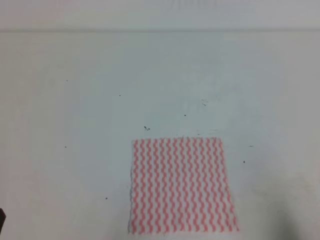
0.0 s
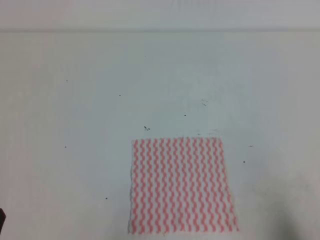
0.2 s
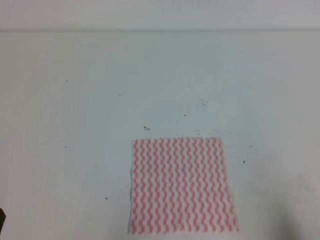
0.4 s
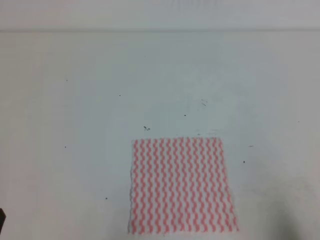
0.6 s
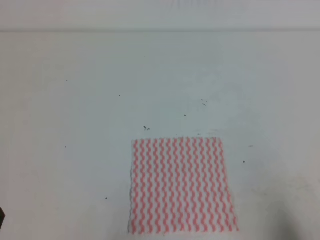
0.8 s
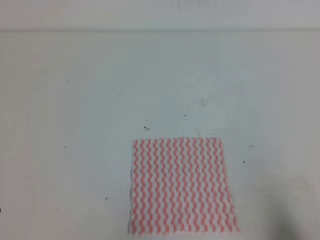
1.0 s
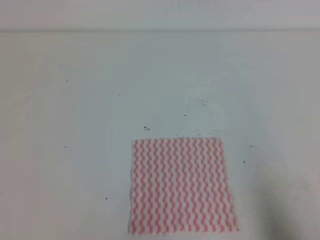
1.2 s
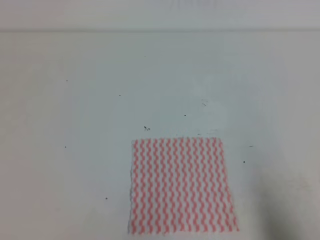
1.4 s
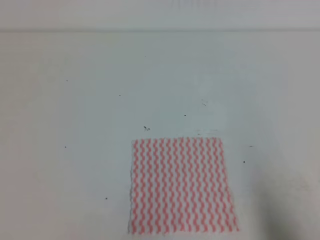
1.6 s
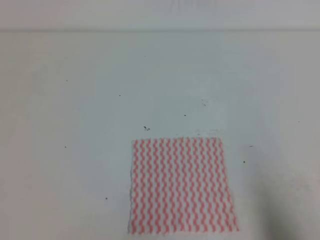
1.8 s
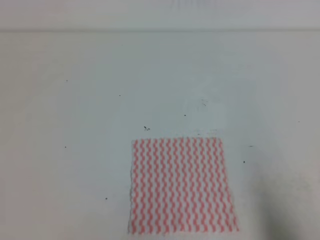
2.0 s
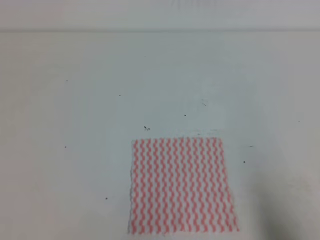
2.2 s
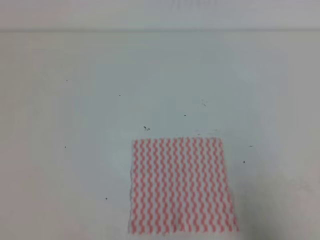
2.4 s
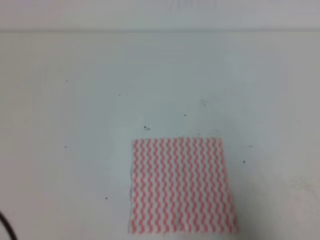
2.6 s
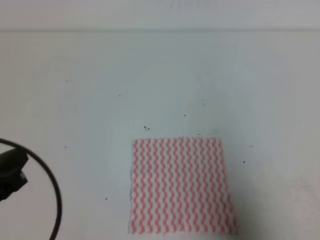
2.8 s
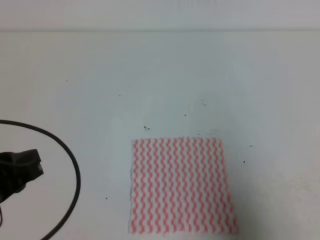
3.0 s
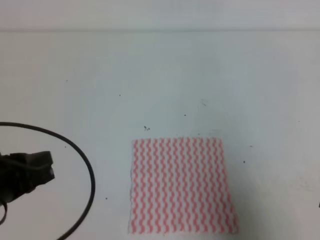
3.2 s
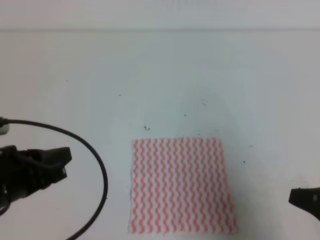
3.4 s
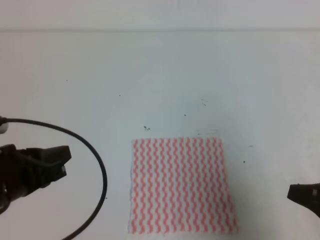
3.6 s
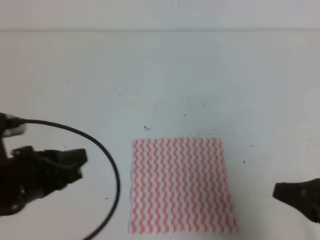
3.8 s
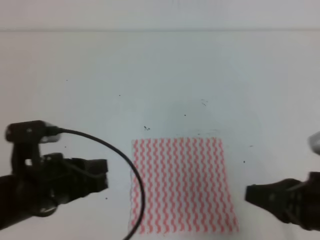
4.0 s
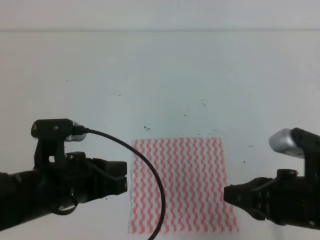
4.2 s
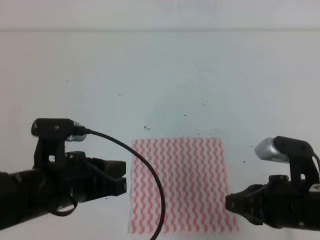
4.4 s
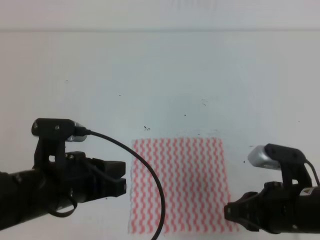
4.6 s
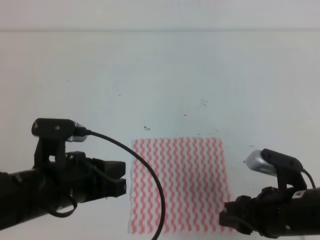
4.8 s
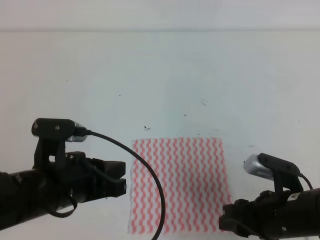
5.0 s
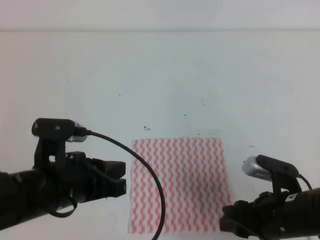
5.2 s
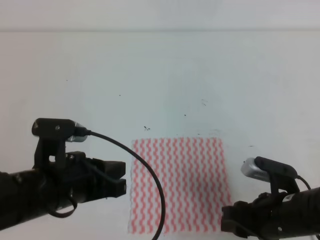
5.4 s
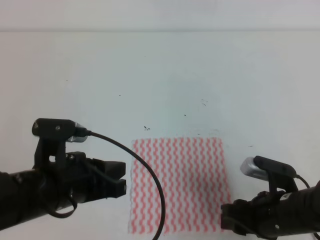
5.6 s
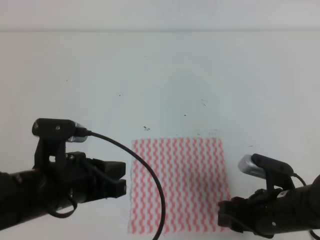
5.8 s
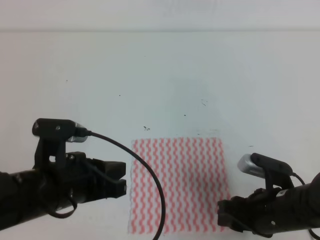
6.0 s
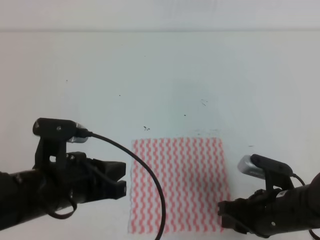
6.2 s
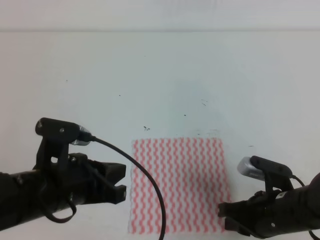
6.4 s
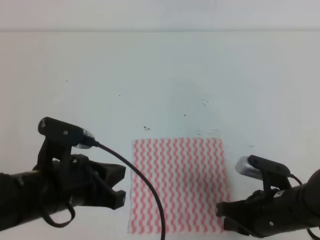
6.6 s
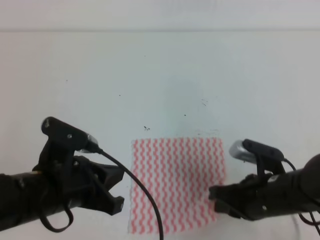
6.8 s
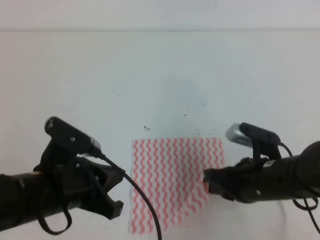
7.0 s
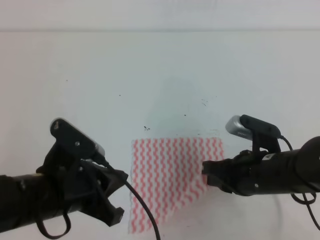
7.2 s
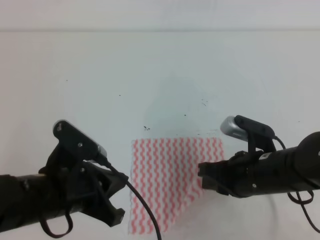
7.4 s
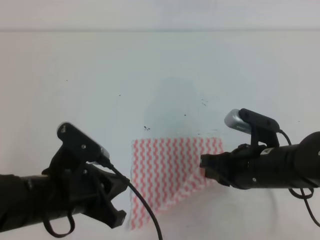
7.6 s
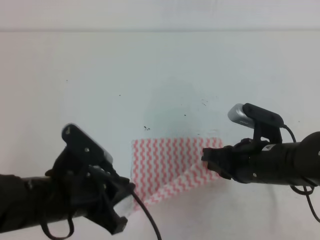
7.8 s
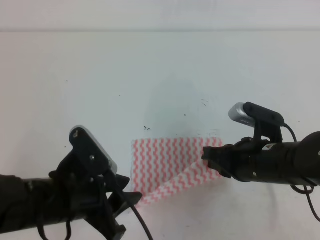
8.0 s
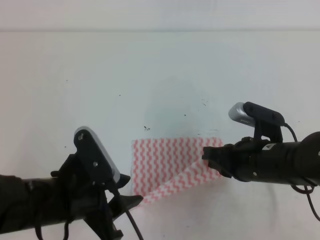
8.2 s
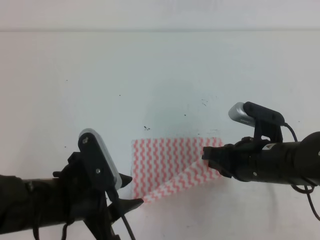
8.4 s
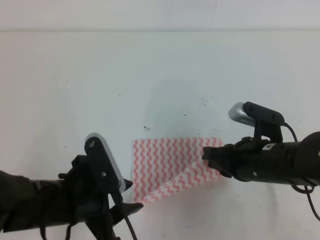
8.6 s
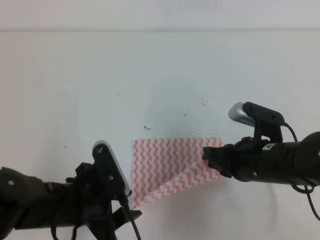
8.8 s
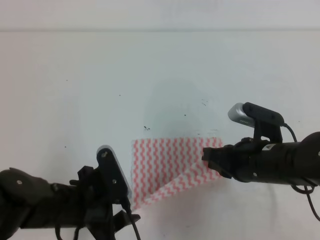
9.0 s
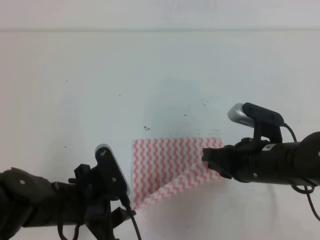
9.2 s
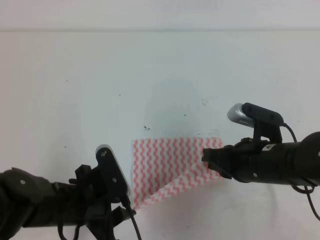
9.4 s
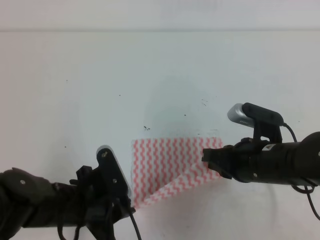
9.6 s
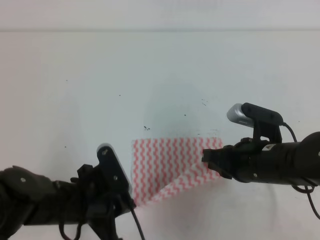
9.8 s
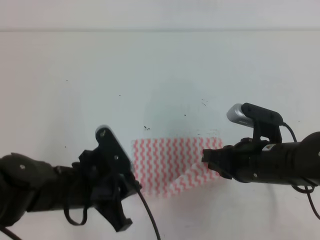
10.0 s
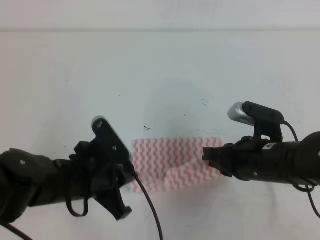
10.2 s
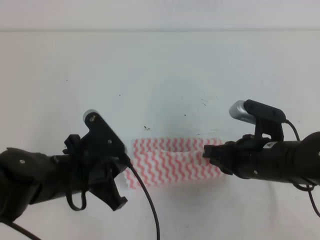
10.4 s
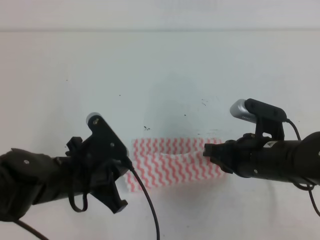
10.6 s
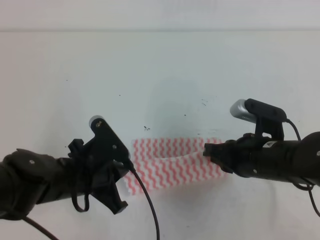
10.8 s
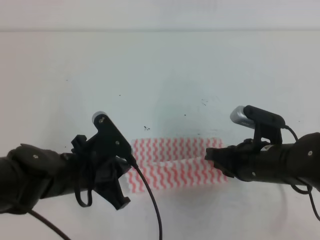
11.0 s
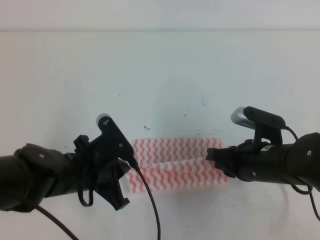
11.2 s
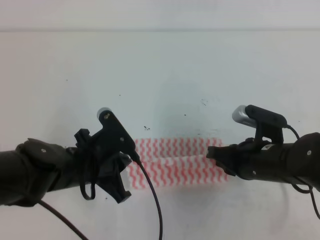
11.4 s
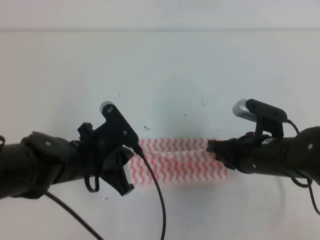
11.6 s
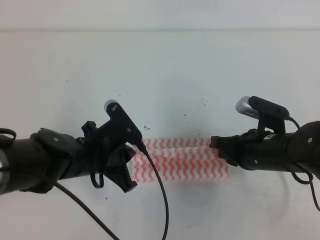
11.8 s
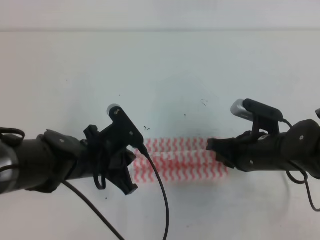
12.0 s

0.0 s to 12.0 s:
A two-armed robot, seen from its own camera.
1.6 to 3.0 s: The left gripper shifts approximately 10 cm forward and upward; the right gripper changes place by about 5 cm.
3.0 to 4.4 s: The left gripper heads to the right, covering approximately 10 cm. Meanwhile the right gripper heads to the left and forward, covering approximately 10 cm.
4.4 to 6.0 s: The right gripper shifts roughly 10 cm downward, and opens.
6.0 to 7.6 s: The right gripper moves upward, approximately 5 cm, and closes.
7.6 to 9.0 s: The left gripper opens its fingers.
9.0 to 10.4 s: The left gripper closes its fingers.
10.4 to 12.0 s: The left gripper changes place by approximately 5 cm.

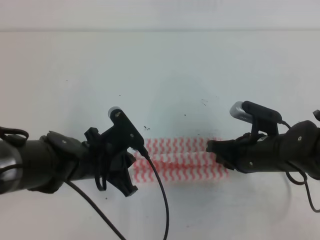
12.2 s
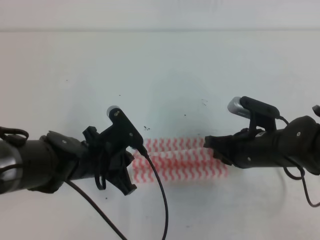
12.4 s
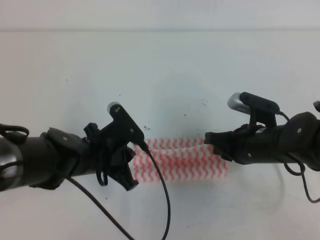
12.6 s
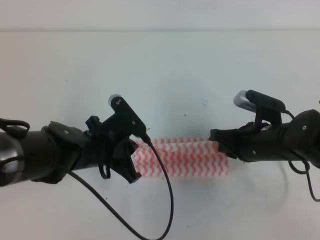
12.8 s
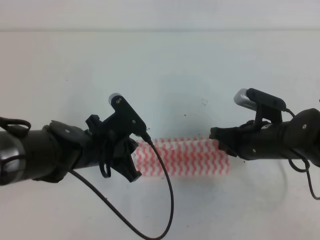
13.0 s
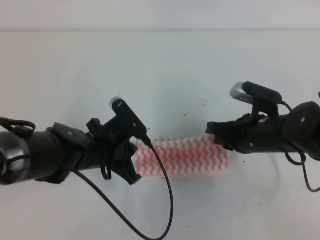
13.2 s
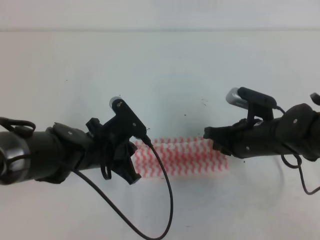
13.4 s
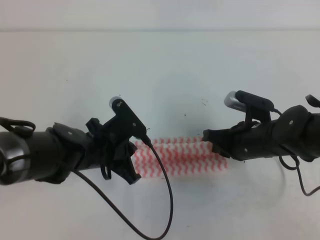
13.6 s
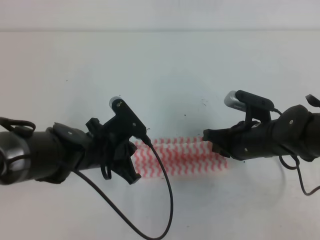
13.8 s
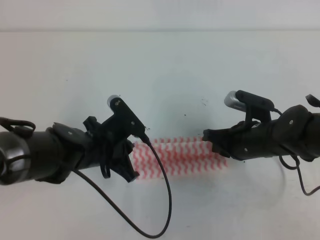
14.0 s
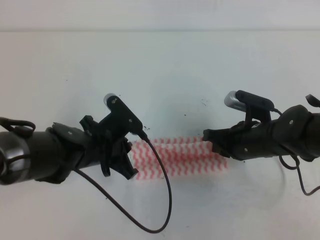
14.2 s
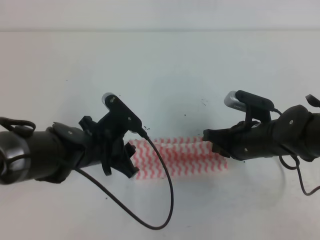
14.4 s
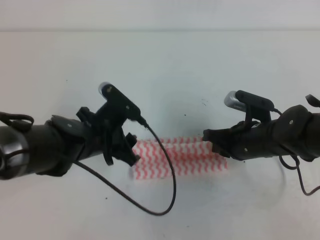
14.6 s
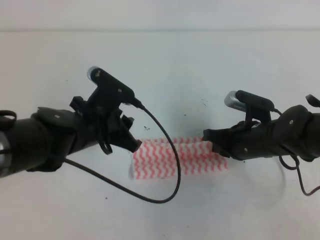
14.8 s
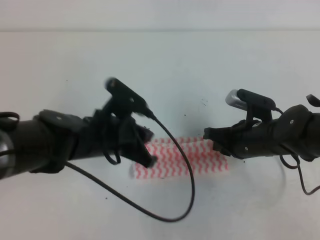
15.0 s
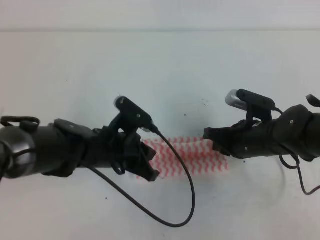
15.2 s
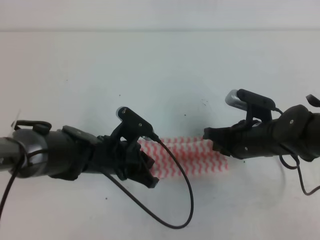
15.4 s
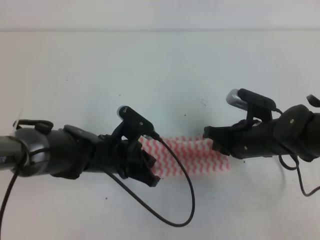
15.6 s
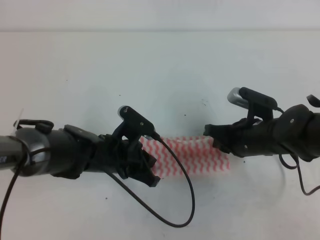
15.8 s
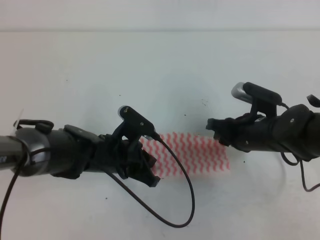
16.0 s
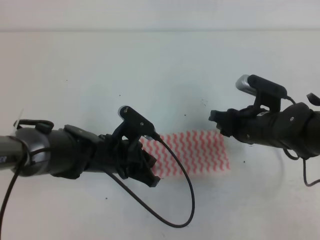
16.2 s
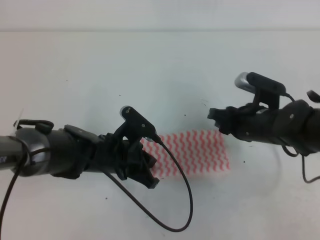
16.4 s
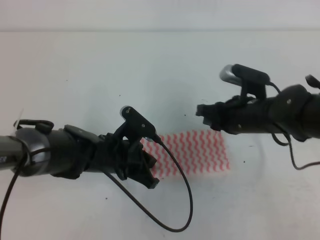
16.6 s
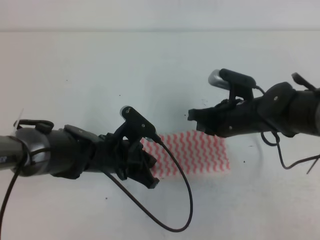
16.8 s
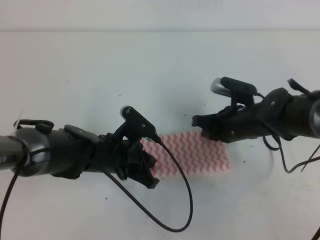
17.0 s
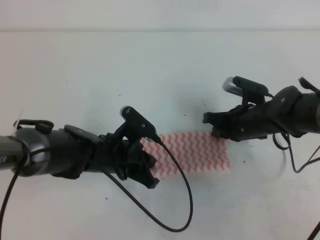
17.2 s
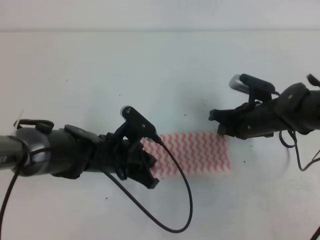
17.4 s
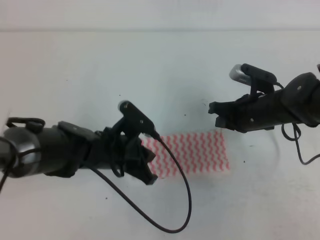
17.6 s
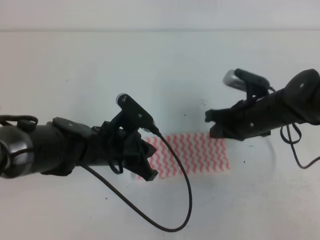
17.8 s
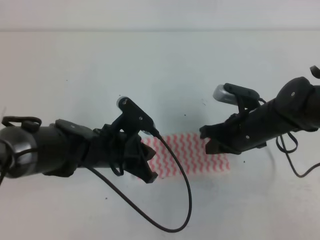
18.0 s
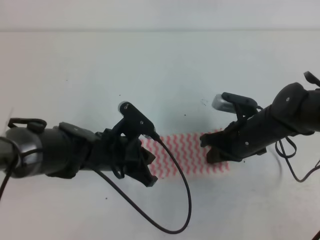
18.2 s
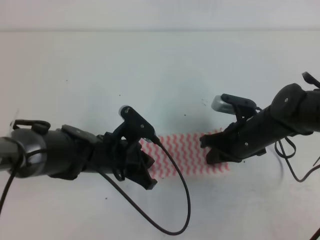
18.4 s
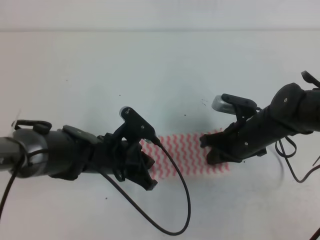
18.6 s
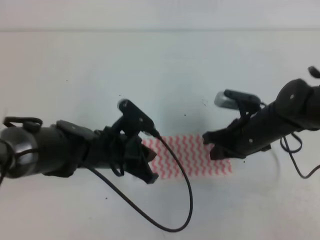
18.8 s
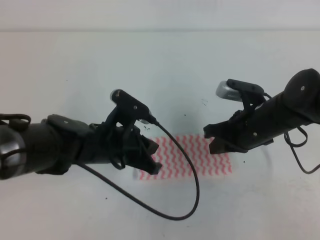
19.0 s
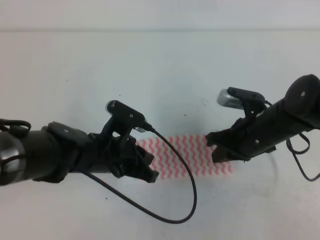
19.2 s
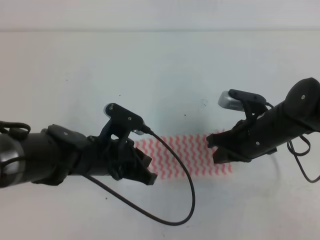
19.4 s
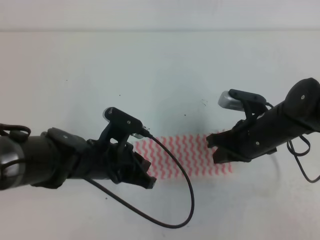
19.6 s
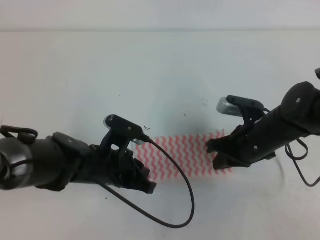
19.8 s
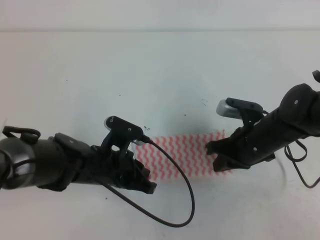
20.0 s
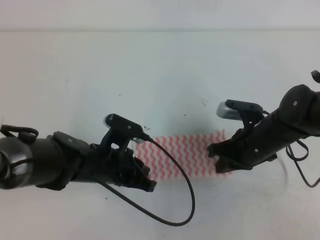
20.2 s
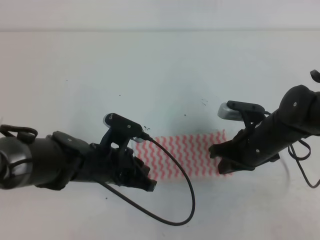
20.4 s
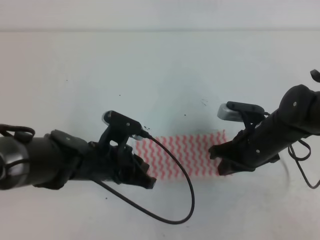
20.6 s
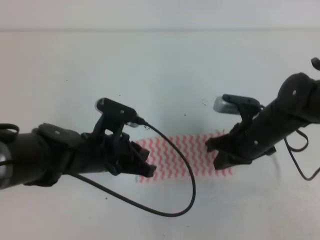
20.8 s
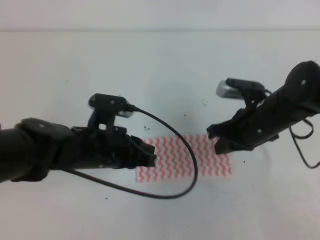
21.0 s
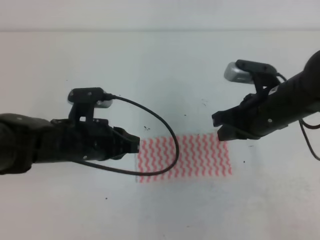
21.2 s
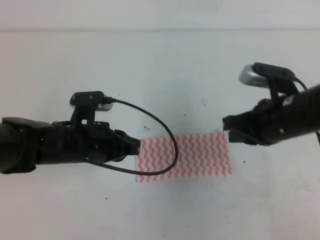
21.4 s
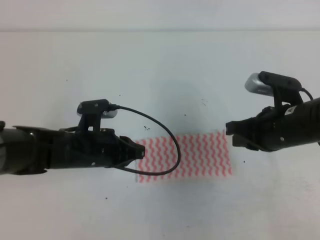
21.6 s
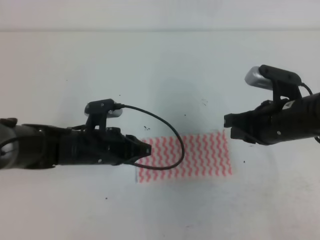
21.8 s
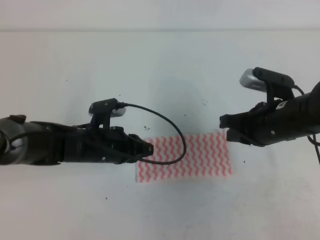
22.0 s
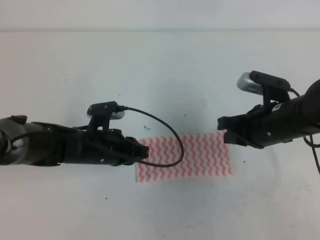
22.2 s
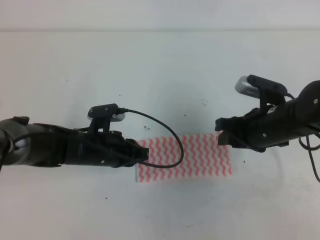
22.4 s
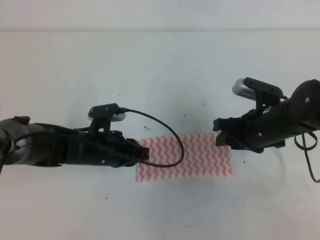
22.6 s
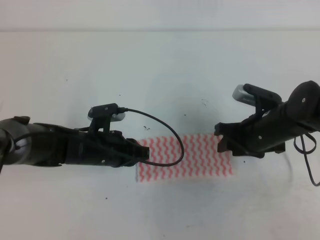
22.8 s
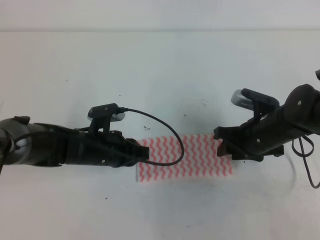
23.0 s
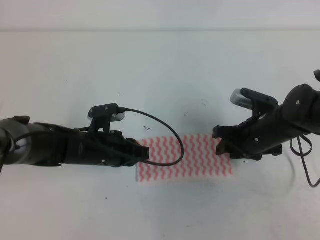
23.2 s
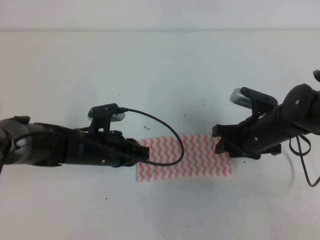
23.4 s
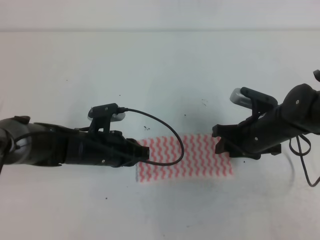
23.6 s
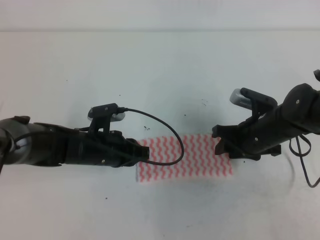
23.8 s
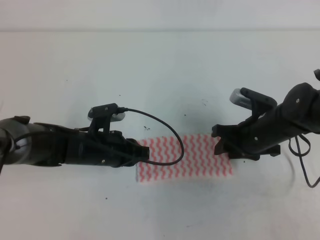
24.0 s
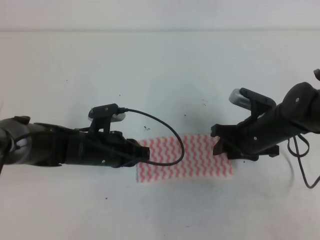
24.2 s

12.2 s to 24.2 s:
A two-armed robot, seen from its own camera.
12.2 to 13.8 s: The grippers make only small movements.
13.8 to 15.2 s: The left gripper opens, then closes again.
15.2 to 16.6 s: The right gripper opens.
16.6 to 18.2 s: The right gripper closes up.
18.2 to 19.8 s: The grippers stay close to where they were, moving slightly.
19.8 to 21.2 s: The left gripper shifts by approximately 5 cm; the right gripper heads upward, covering some 5 cm.
21.2 to 22.6 s: The left gripper goes some 5 cm downward. Meanwhile the right gripper opens up.
22.6 to 24.2 s: The grippers move only a little.
